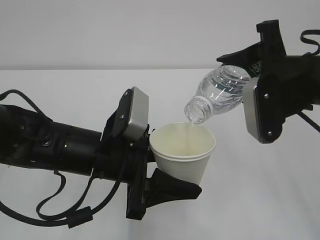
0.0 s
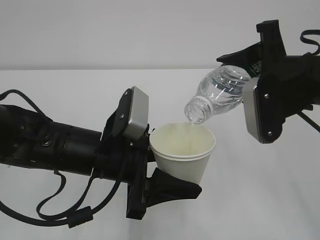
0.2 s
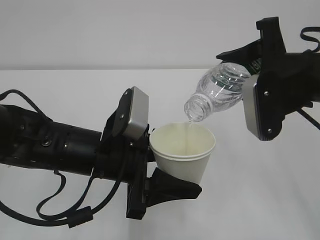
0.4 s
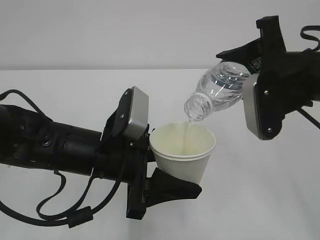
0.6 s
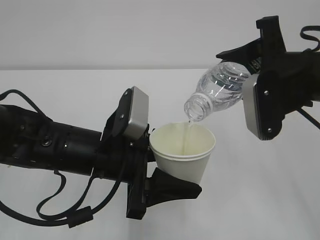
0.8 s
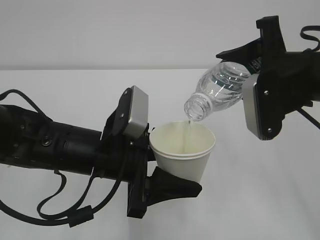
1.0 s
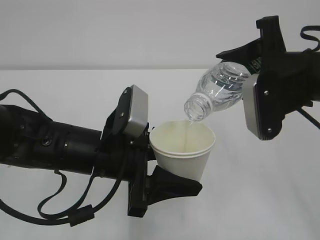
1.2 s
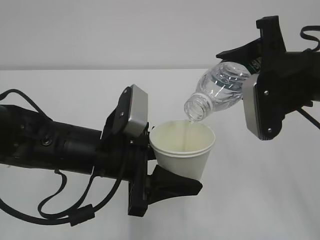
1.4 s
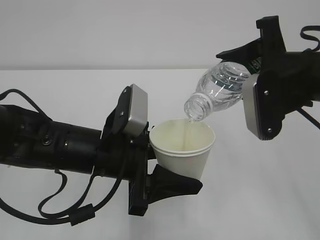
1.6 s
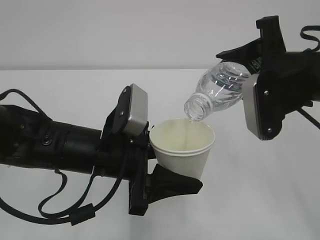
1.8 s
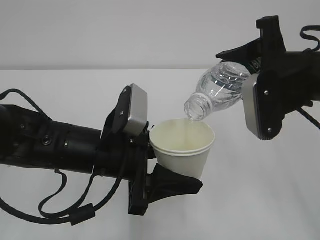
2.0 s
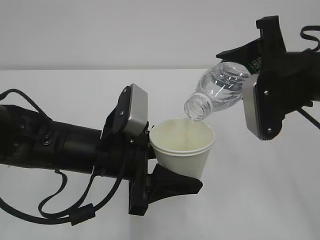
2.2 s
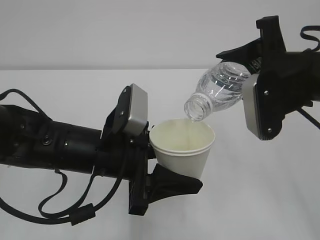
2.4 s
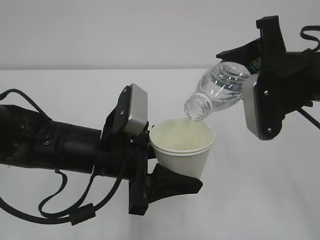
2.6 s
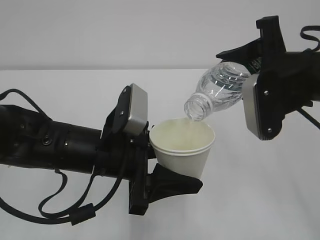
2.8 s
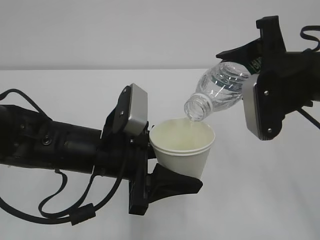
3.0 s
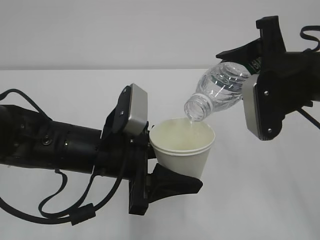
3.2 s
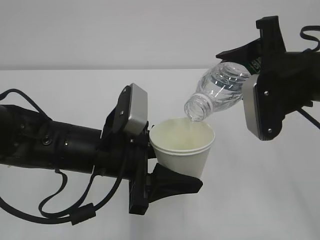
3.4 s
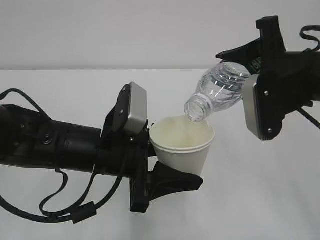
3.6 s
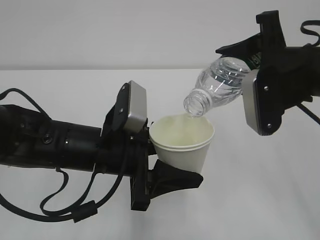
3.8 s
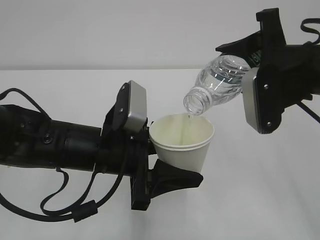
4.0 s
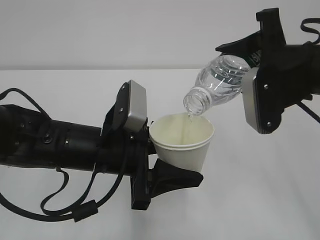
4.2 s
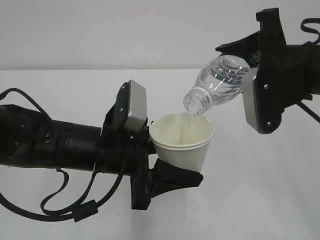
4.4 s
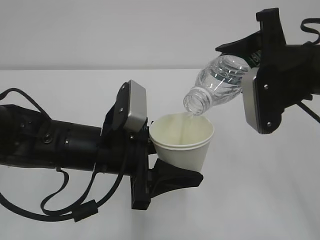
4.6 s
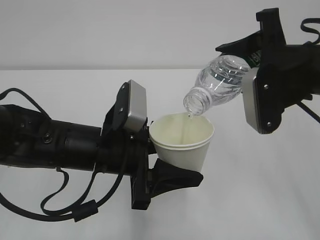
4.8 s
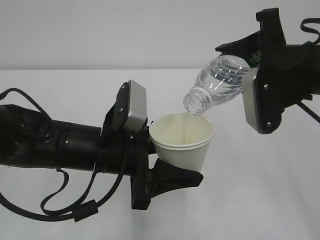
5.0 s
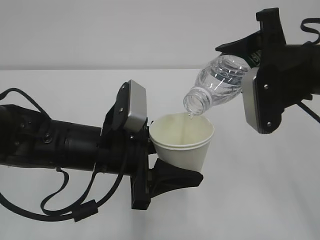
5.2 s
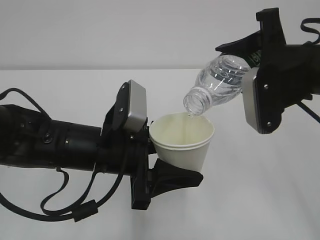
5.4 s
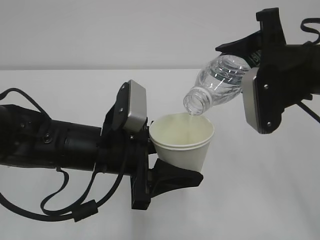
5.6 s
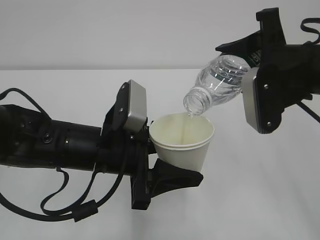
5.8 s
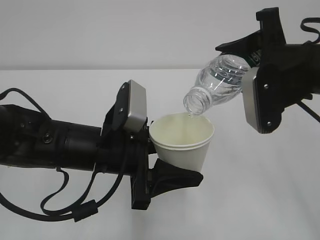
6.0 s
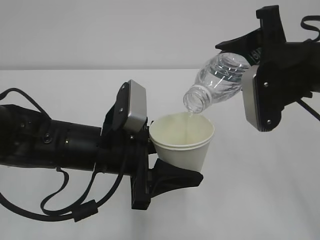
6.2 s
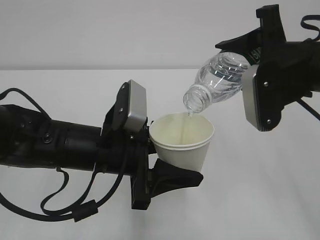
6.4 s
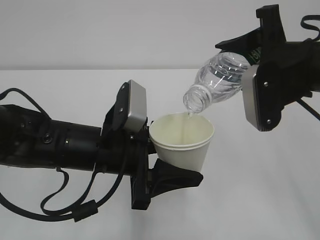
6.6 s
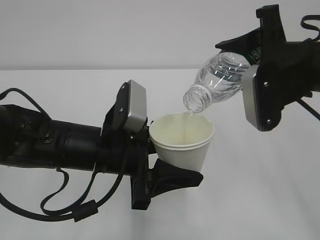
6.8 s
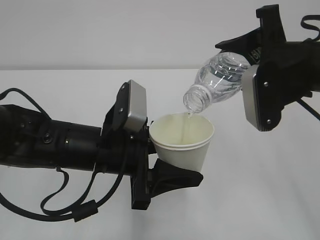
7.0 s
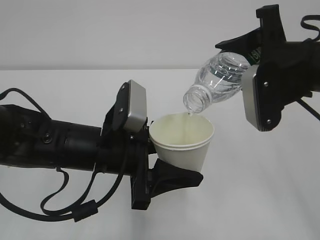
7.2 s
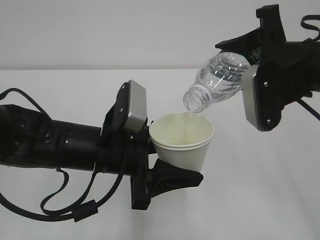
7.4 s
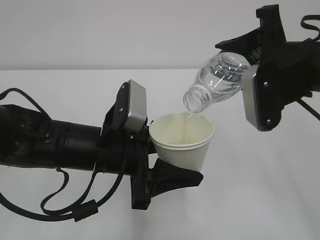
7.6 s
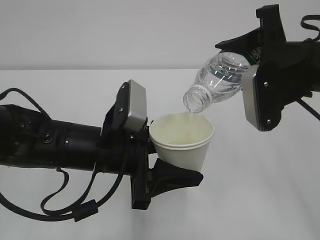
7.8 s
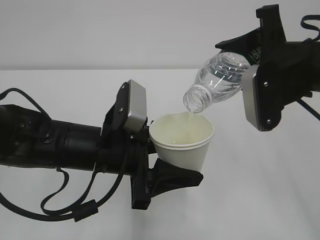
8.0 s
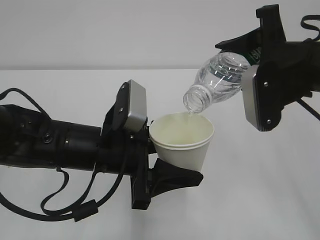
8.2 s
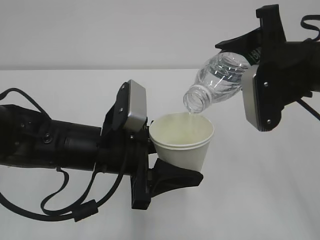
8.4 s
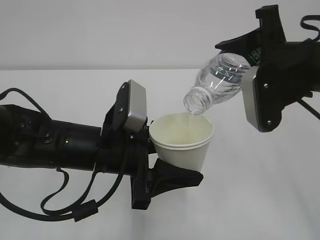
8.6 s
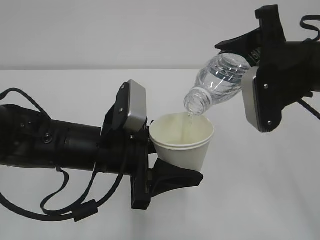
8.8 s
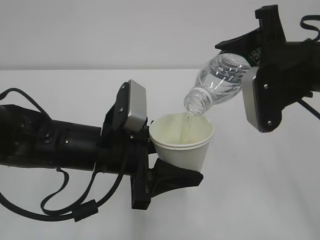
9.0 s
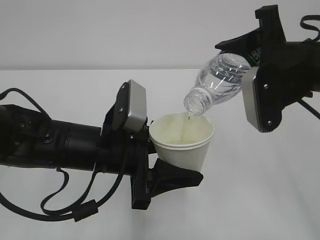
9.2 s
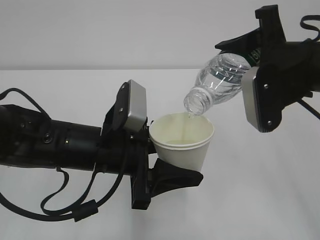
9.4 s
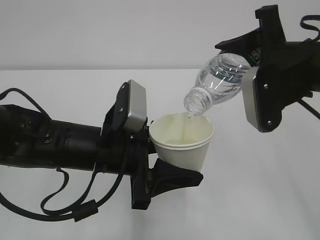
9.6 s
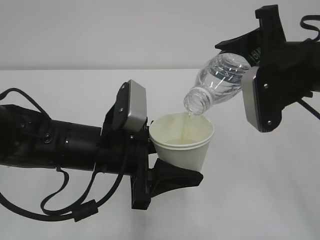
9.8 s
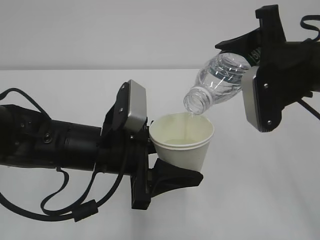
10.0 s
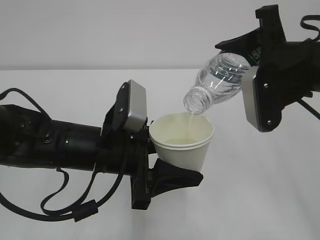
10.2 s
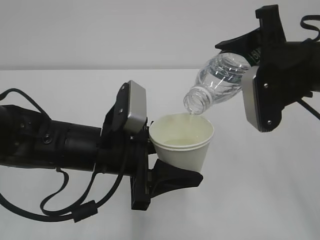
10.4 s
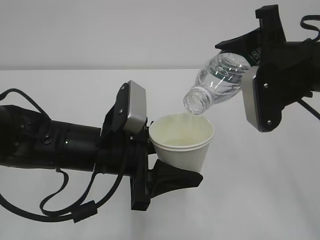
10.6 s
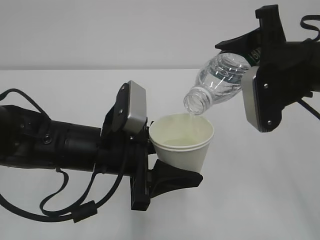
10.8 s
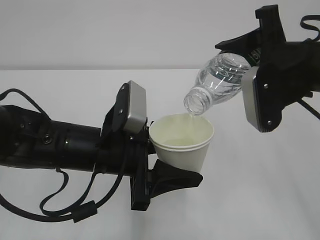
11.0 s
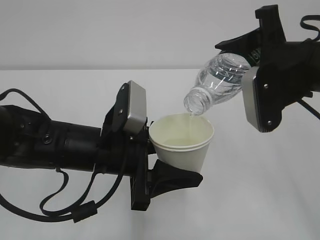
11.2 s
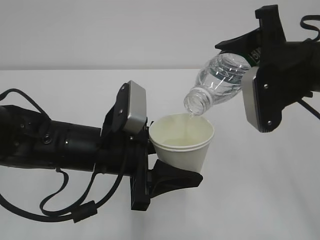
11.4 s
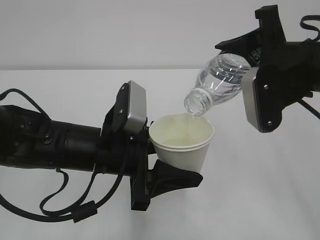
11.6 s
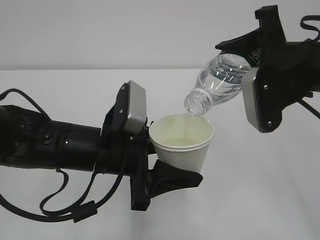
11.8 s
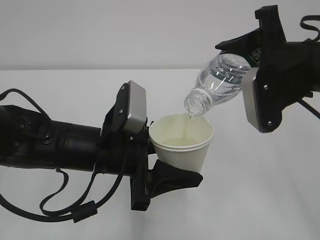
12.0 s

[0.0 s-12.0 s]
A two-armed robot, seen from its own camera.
0.0 to 6.0 s: Neither gripper changes place.
6.0 to 12.0 s: Neither gripper changes place.

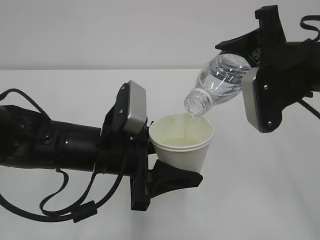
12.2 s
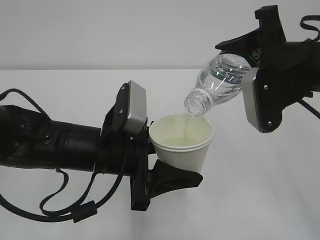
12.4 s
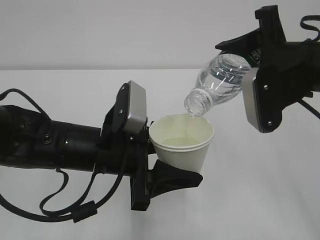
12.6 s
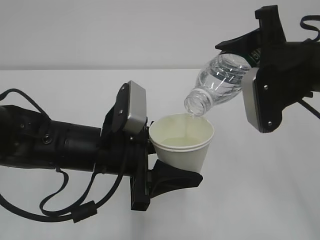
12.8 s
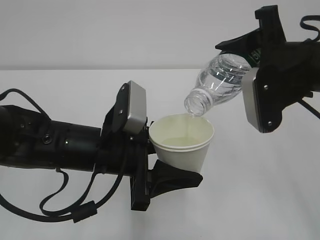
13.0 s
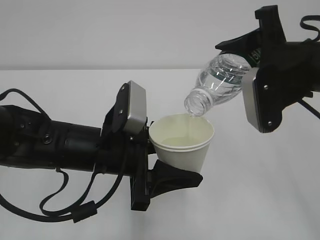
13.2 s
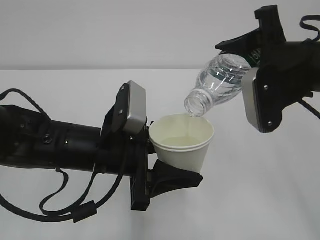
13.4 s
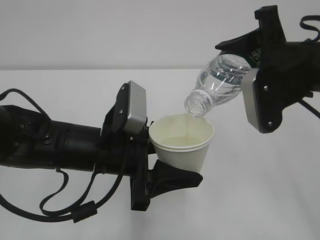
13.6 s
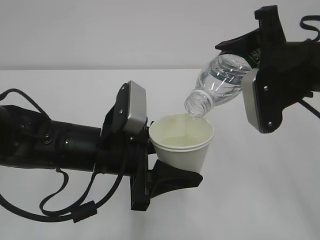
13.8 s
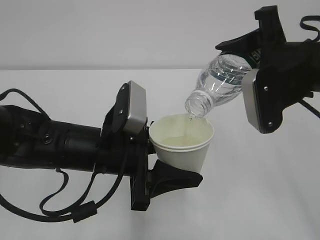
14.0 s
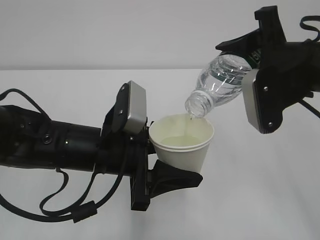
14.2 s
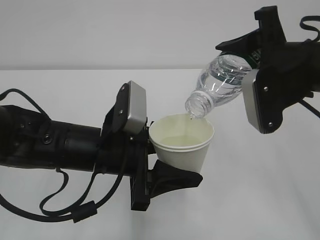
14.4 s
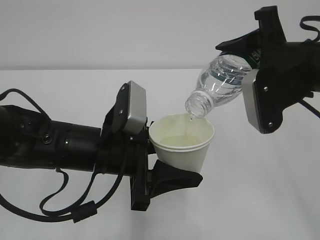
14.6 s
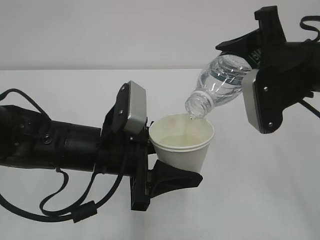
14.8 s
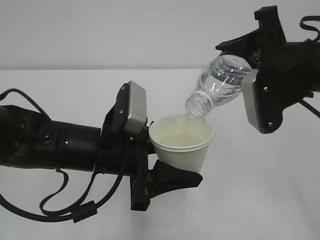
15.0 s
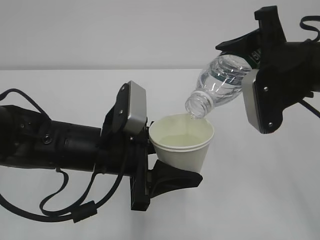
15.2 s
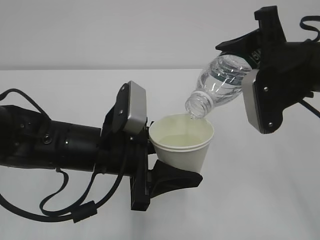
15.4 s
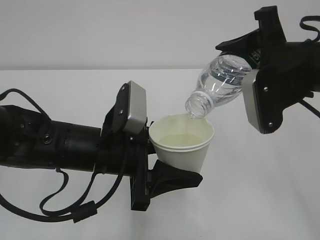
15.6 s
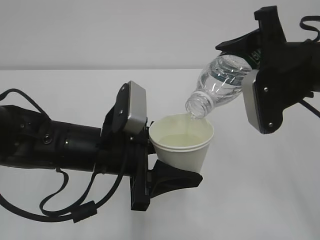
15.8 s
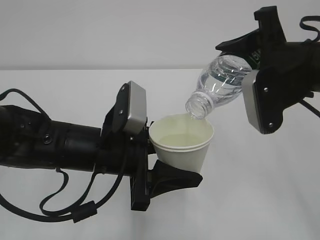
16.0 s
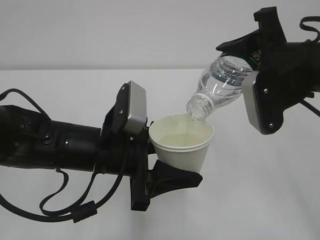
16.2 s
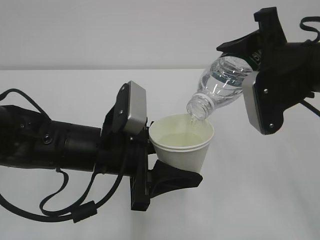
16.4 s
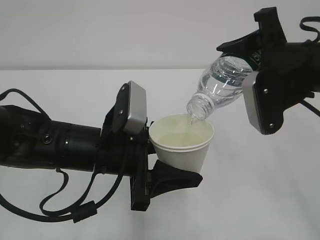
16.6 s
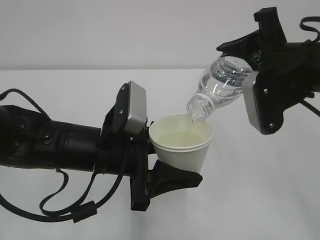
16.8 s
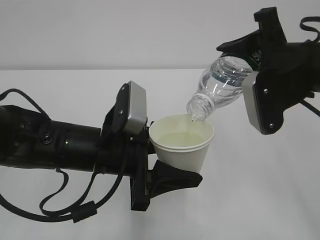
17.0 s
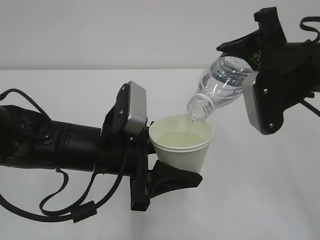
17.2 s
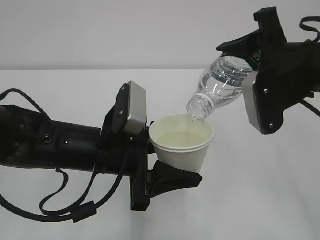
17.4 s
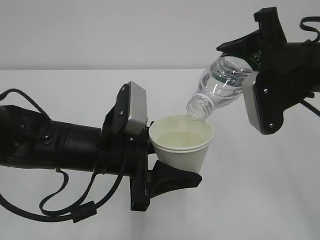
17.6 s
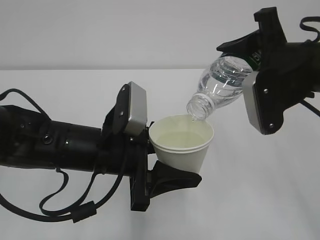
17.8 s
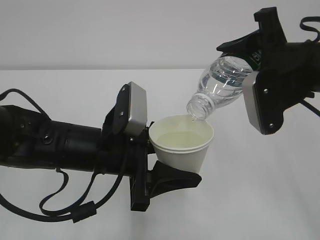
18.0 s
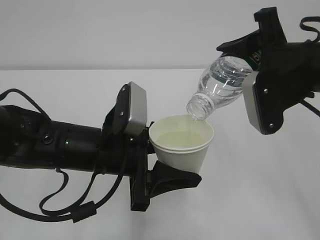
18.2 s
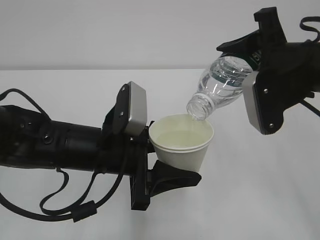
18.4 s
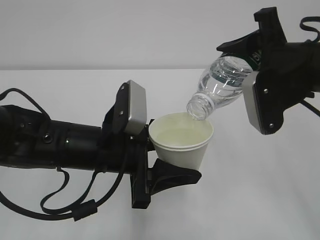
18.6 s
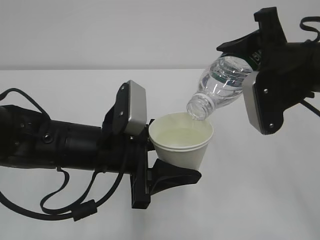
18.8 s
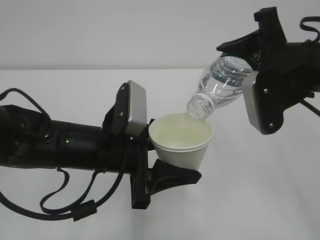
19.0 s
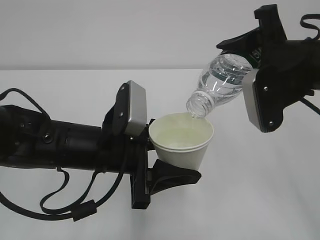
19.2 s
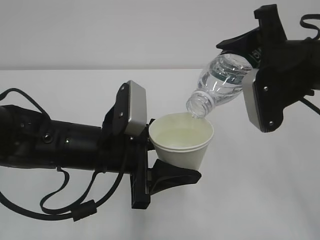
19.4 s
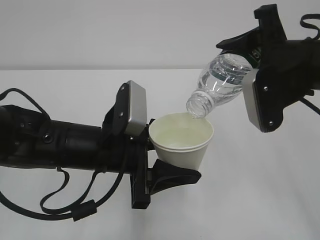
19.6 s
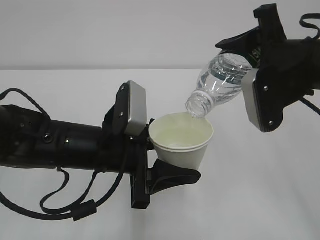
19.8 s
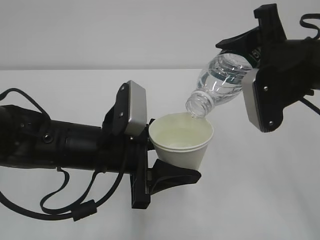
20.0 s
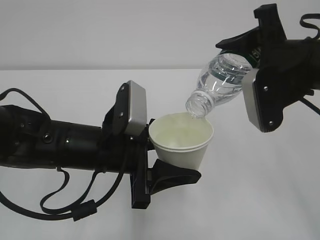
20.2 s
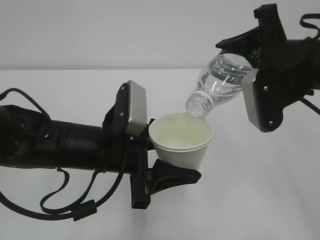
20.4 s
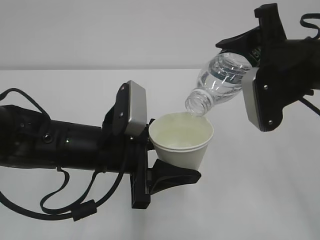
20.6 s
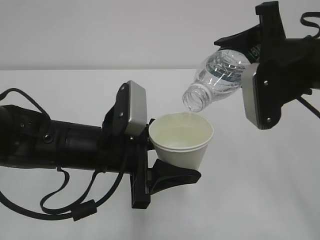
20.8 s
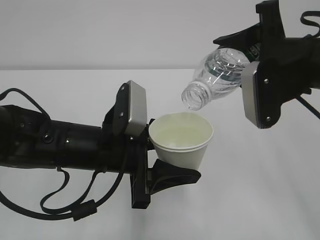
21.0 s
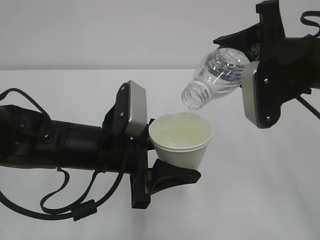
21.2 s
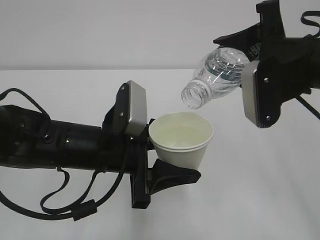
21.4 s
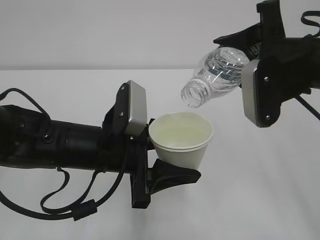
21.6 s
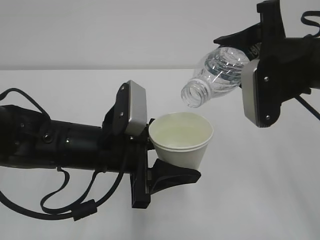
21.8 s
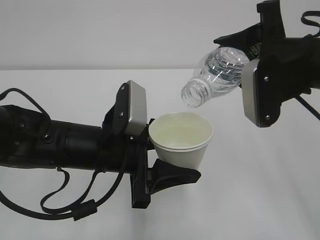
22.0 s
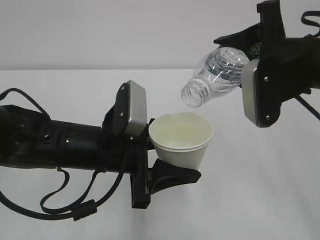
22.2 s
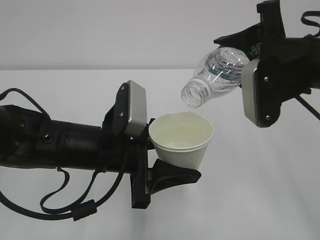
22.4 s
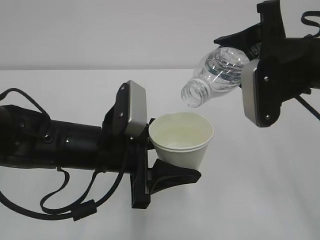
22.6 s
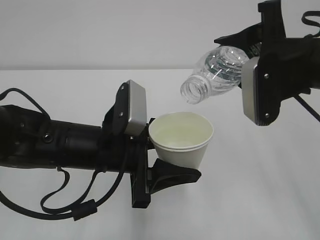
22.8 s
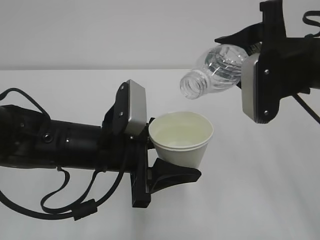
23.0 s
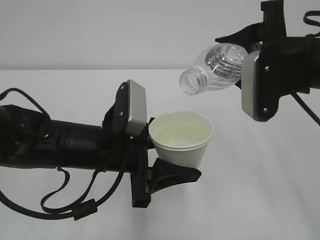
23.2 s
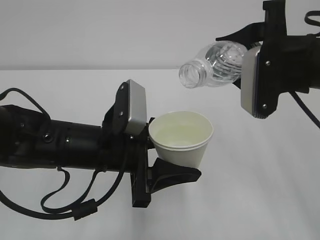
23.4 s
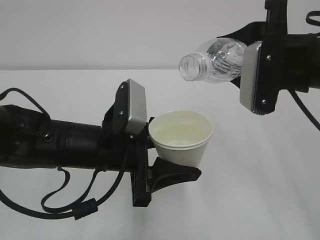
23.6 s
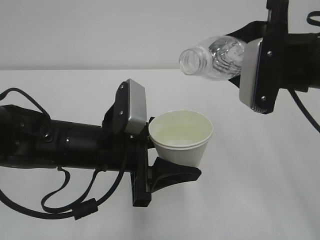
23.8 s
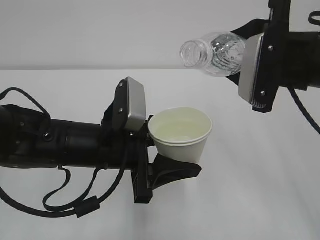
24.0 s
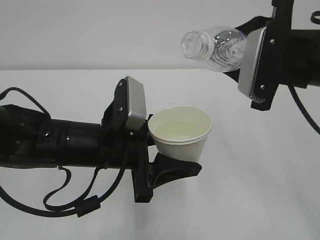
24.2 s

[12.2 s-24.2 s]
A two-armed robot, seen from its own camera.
12.2 to 19.8 s: Both grippers stay about where they are.
19.8 to 21.2 s: There are only small adjustments of the grippers.
21.2 to 22.6 s: Both grippers stay put.
